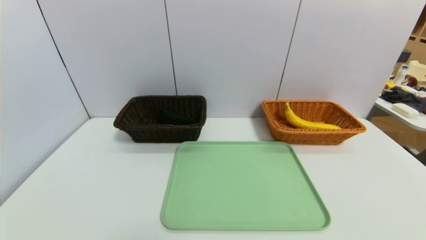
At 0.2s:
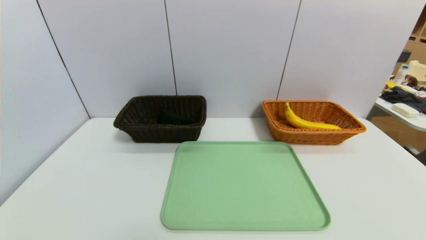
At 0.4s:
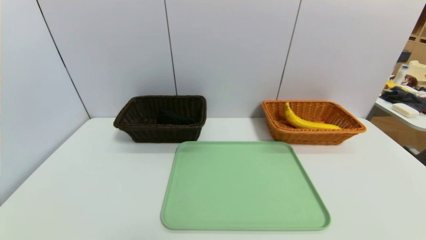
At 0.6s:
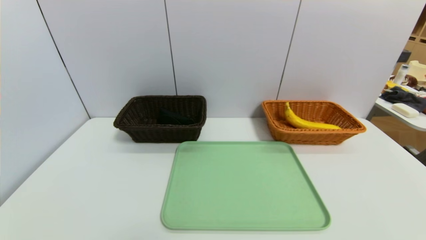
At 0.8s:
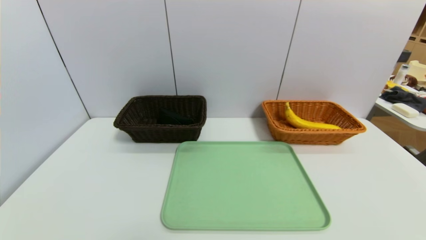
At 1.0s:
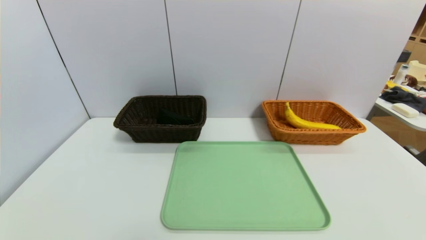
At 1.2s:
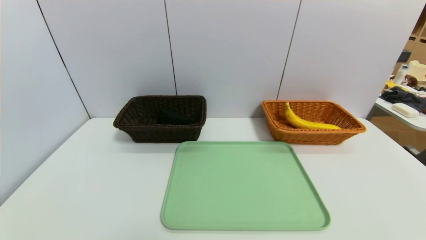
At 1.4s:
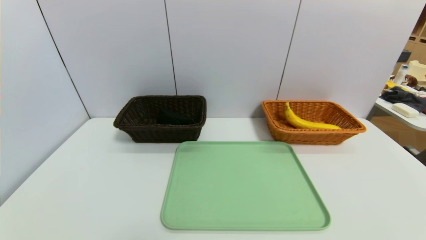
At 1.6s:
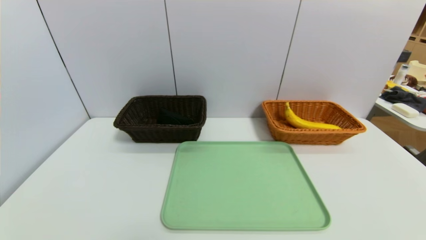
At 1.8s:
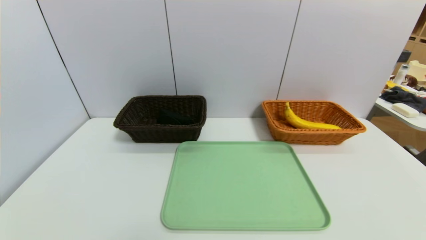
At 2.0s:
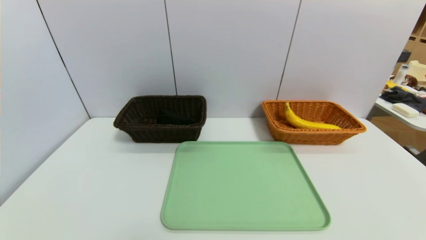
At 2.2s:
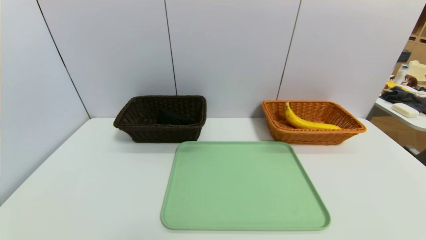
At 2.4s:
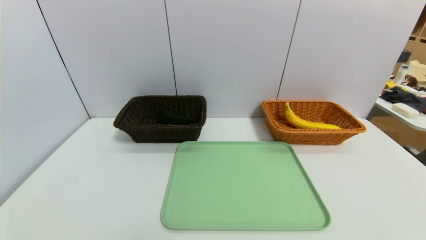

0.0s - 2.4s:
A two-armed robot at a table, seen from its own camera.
Task of the whole recording: place the food in the right basket with the right gripper, and place the non food items in the left basket with the left gripper.
1.2s - 2.4s: Both grippers stay about where they are.

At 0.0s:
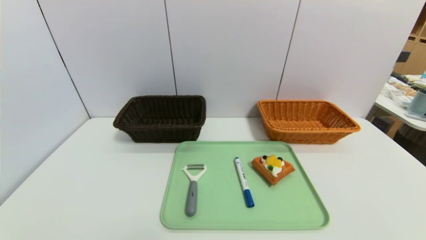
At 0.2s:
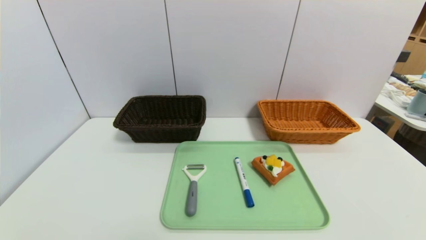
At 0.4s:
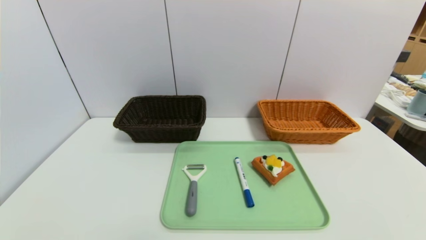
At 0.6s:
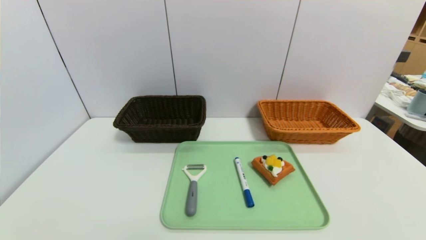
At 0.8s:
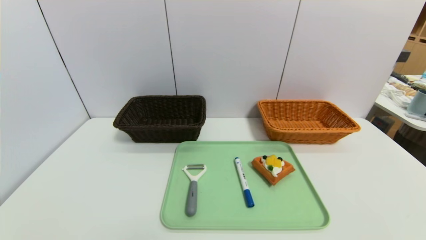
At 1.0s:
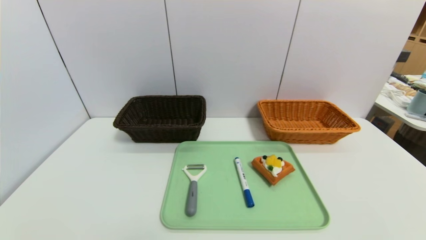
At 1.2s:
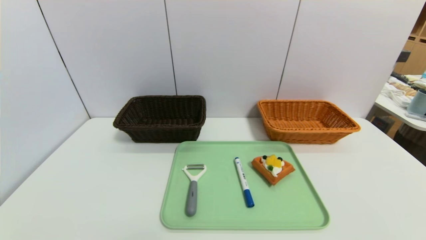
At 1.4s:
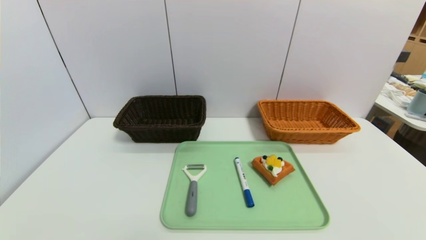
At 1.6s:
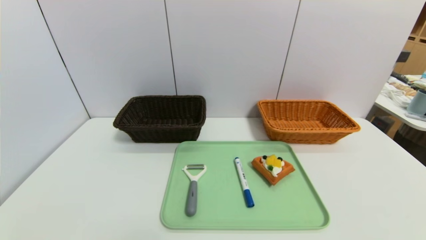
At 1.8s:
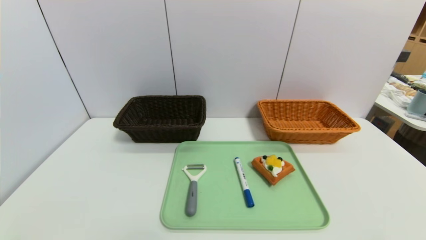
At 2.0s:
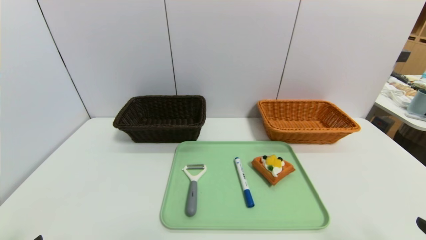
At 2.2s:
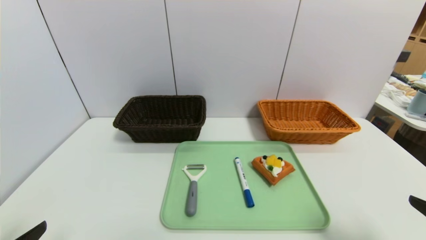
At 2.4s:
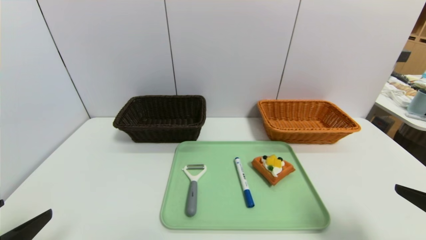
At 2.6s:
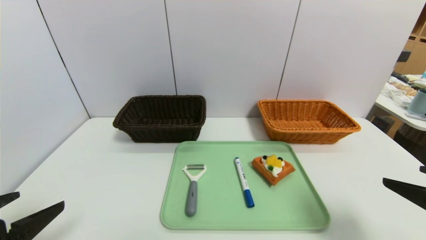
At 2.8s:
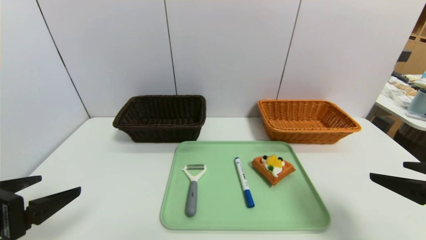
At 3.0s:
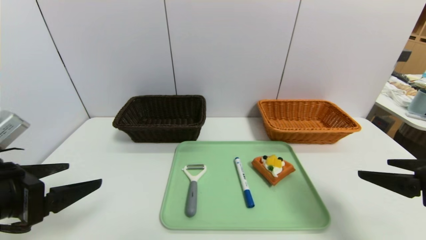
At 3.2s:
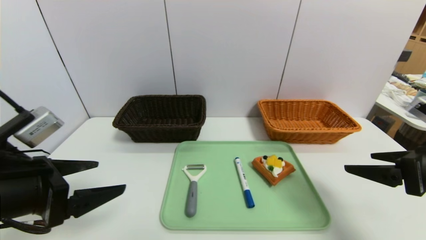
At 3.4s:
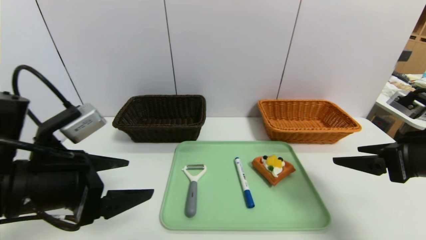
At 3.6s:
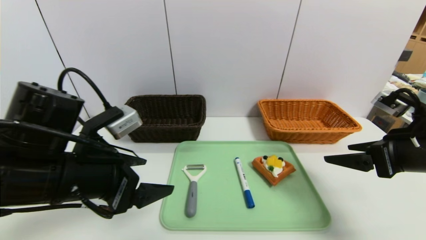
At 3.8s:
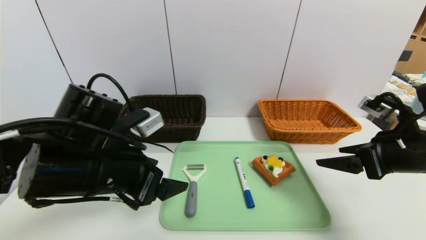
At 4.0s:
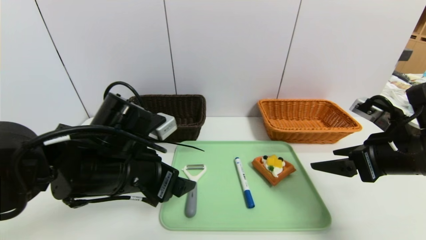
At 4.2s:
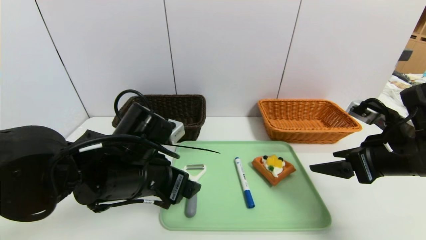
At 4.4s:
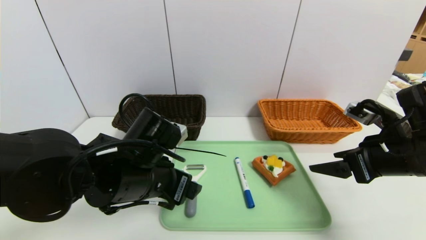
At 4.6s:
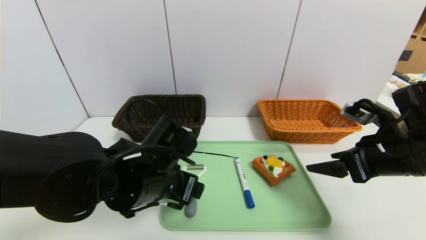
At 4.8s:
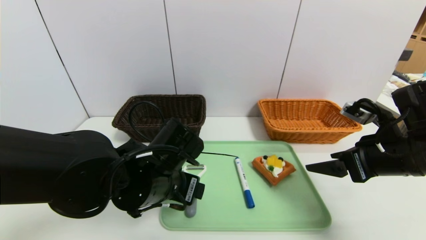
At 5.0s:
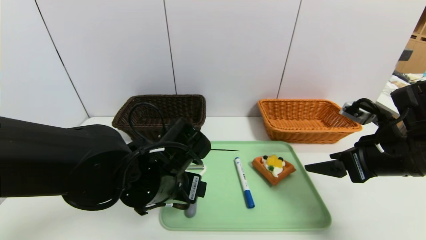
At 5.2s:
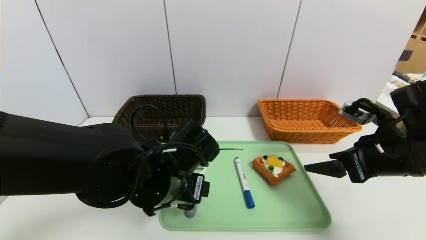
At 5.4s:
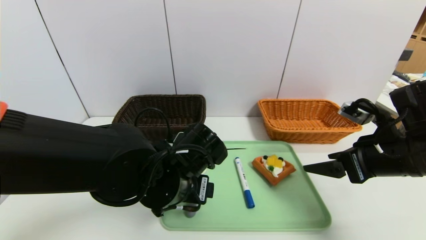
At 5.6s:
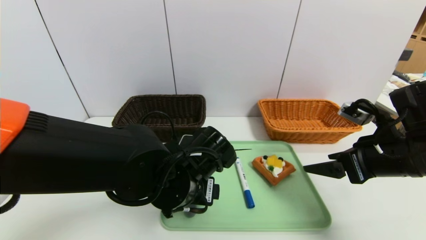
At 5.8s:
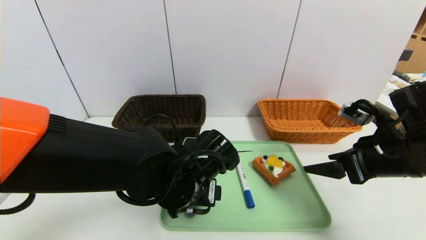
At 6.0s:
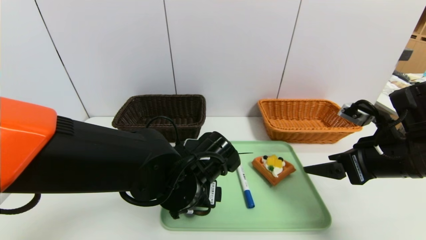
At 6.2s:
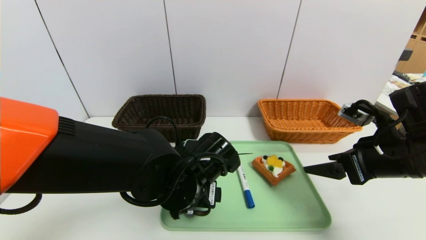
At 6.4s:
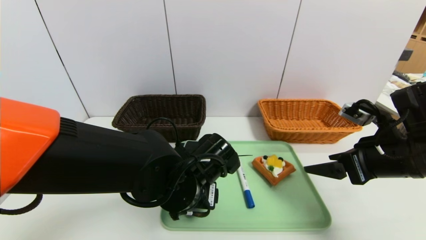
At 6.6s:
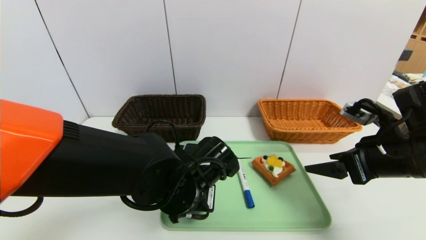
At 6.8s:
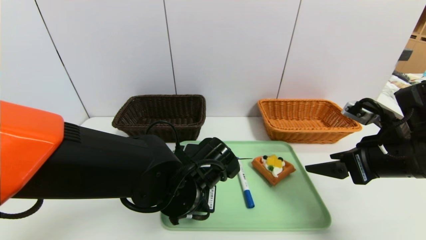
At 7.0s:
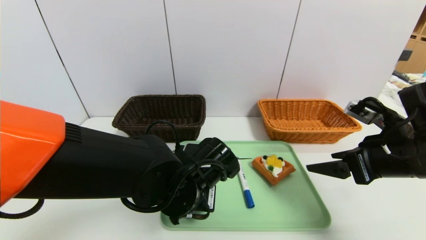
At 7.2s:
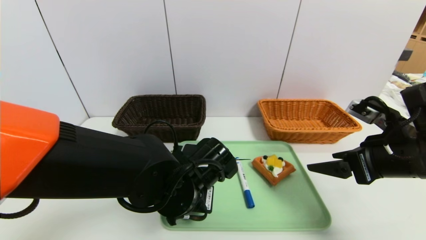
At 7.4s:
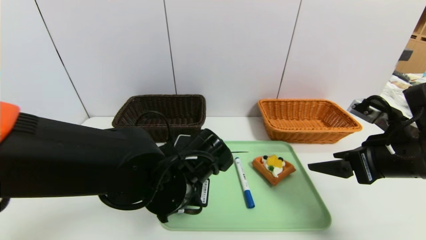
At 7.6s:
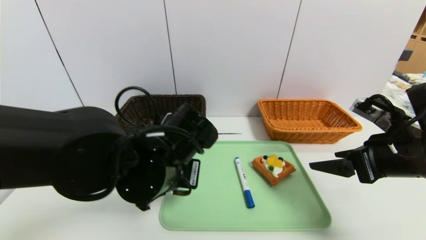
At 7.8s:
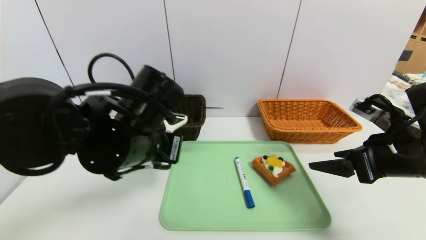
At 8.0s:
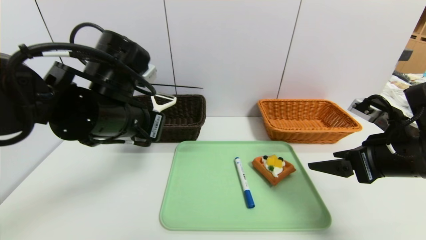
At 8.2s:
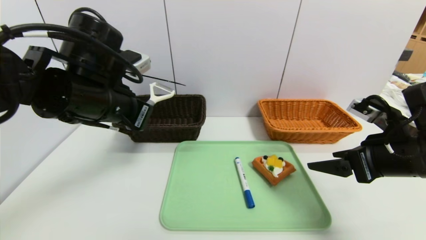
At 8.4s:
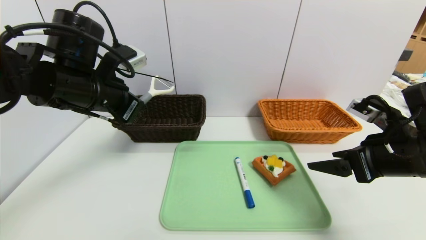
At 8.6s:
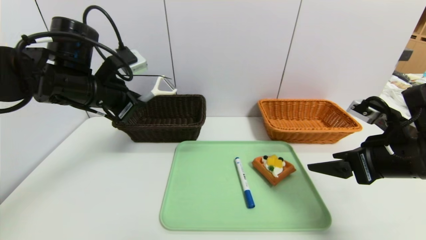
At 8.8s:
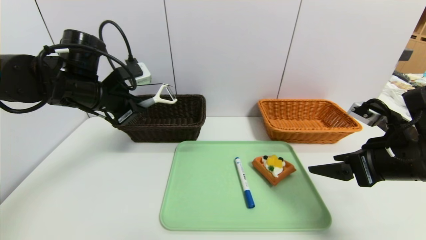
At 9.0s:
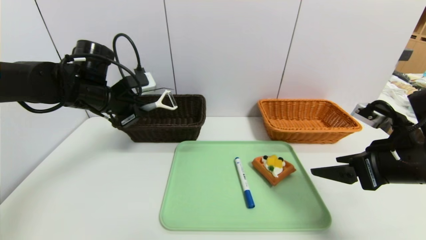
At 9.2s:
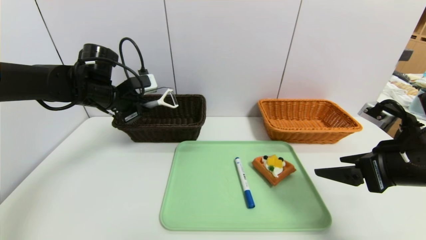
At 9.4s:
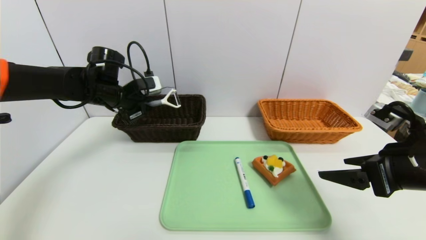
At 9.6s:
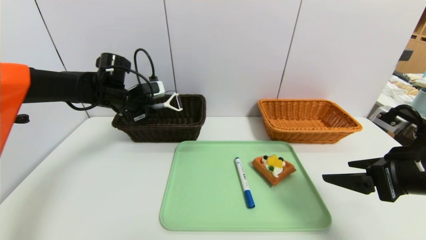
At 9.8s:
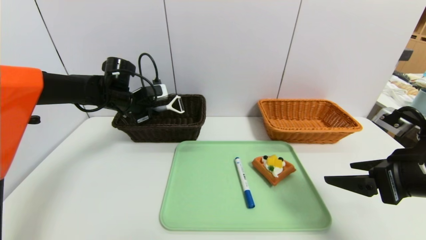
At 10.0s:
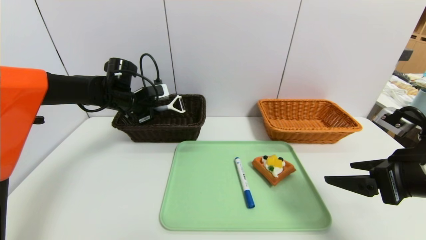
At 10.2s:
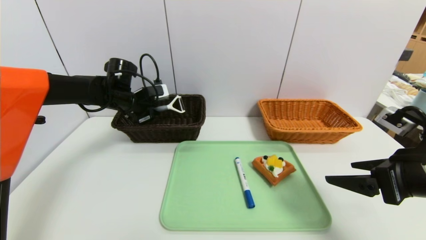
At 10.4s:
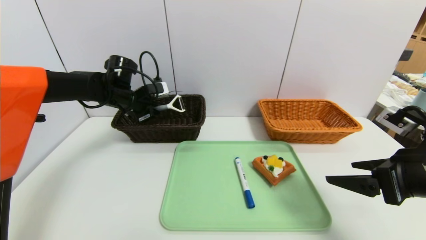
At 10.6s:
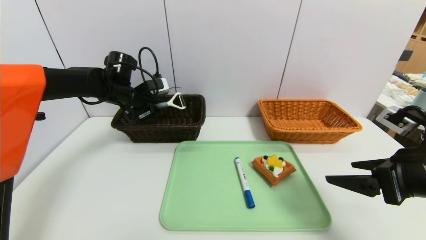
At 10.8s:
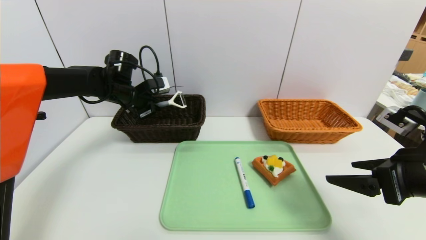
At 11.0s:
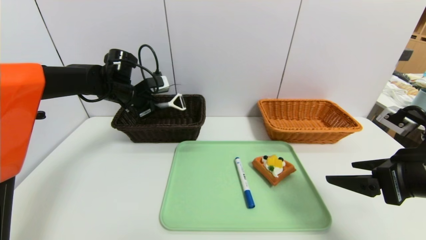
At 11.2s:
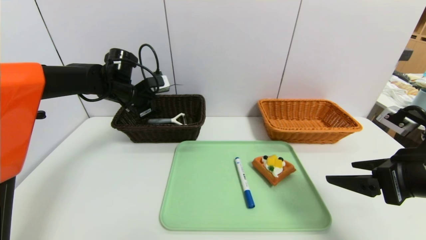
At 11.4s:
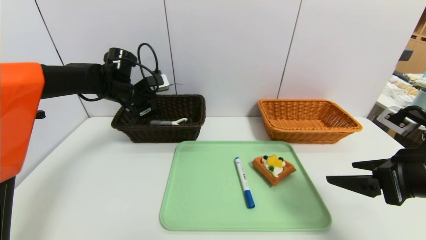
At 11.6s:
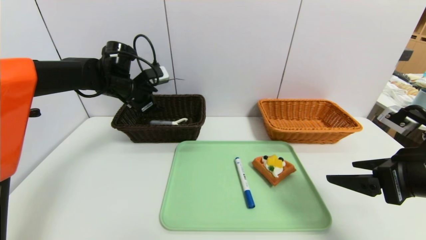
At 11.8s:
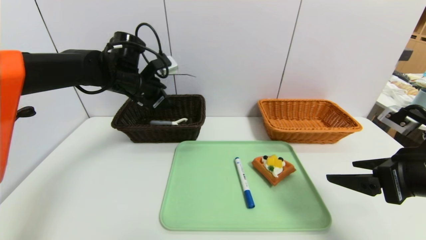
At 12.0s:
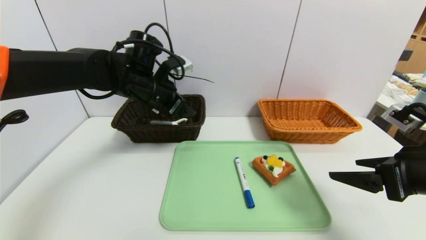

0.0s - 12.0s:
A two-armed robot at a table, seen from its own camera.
Task of the whole recording: place the food in the right basket with the right gripper, and place the non food items in the left basket with the left gripper.
Step, 0.0s - 11.4s: Grasp the peeler and put it in the left basket.
1.6s - 3.0s: Both grippers move forward and upward, some 20 cm.
3.0s - 4.4s: The right gripper shifts about 10 cm forward. The left gripper is displaced to the right and forward by roughly 20 cm.
4.4s - 6.0s: The left gripper heads to the right, covering some 5 cm.
6.0s - 7.6s: The left gripper travels upward by roughly 5 cm, and closes.
7.6s - 9.0s: The left gripper is displaced to the left and forward by roughly 20 cm.
9.0s - 10.4s: The left gripper shifts about 10 cm forward.
10.4s - 12.0s: The left gripper is displaced to the right, backward and upward by roughly 15 cm, and opens.

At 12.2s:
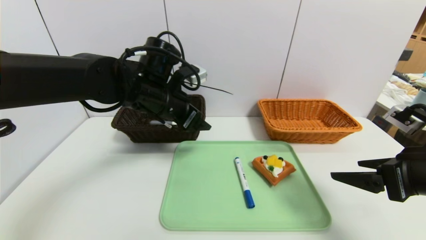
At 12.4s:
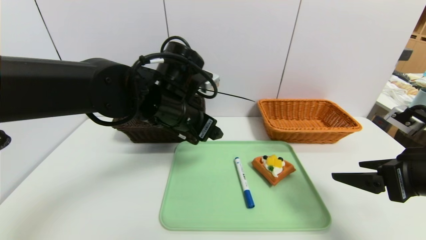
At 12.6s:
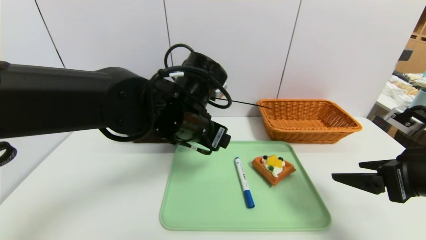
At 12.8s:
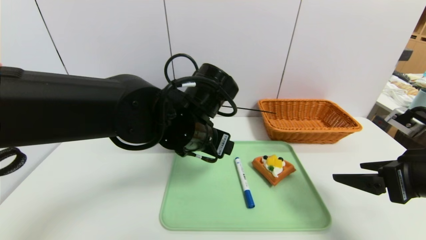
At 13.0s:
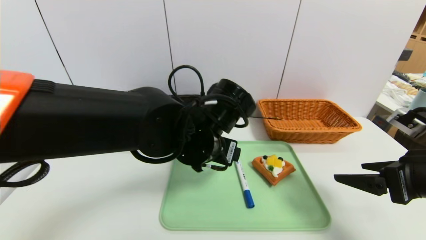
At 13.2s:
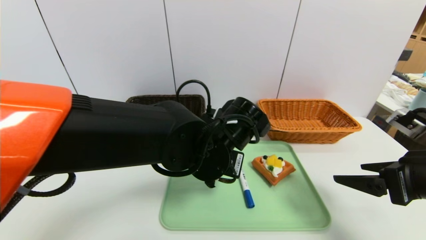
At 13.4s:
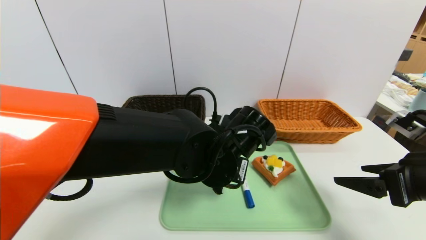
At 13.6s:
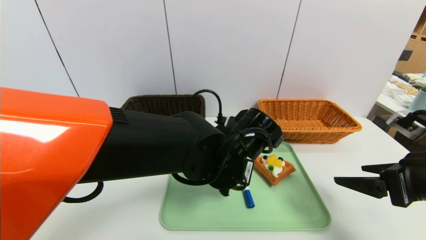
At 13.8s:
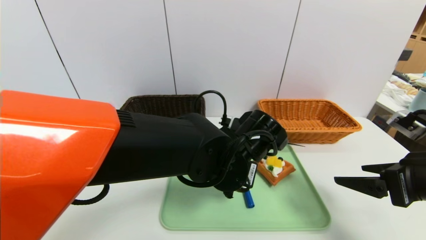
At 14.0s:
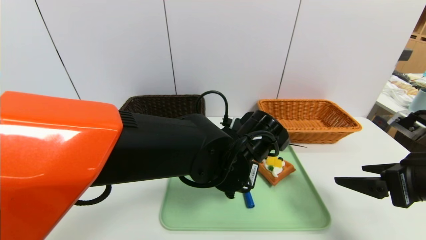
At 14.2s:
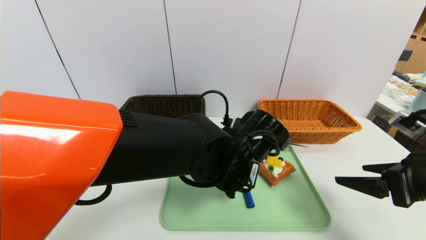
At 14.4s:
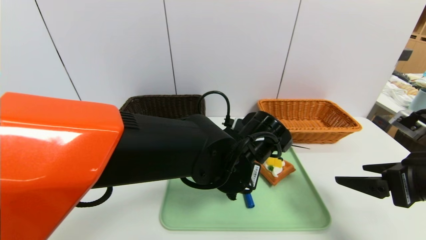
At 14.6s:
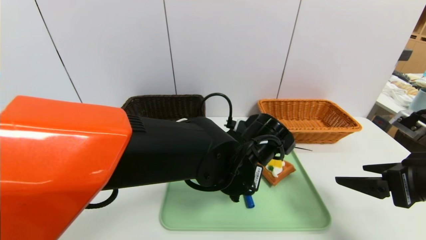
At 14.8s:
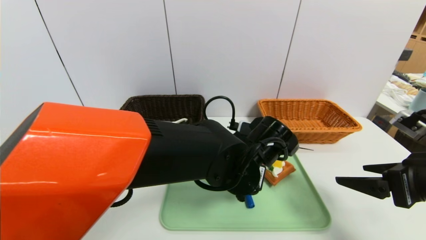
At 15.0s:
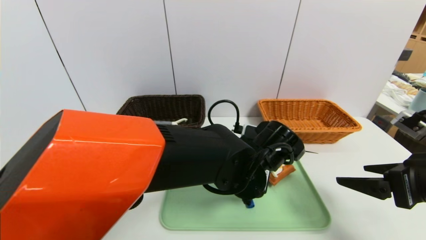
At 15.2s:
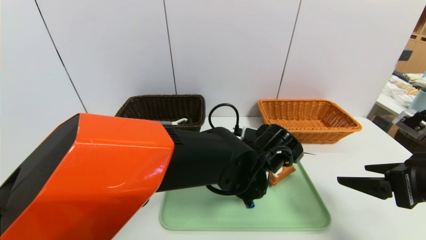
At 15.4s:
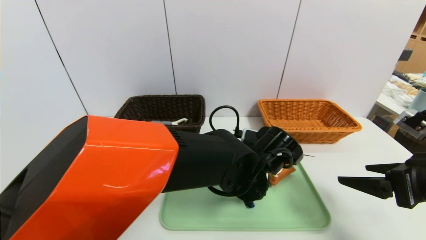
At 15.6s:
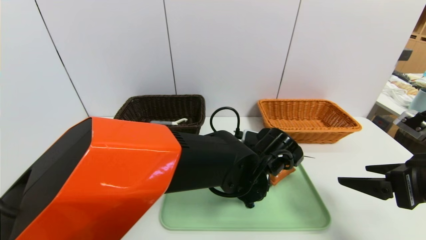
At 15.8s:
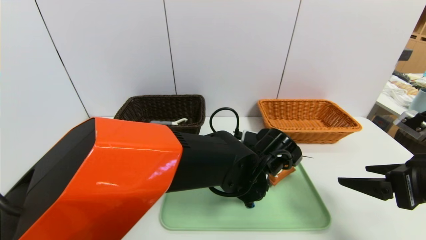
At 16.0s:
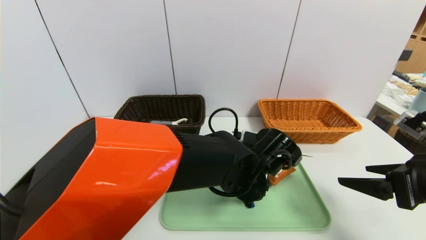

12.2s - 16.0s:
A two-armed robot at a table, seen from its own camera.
Task of the whole recording: place the food in the right basket with the right gripper, and place the non food items in the left basket with the left gripper.
12.2s - 13.4s: The left gripper goes approximately 15 cm to the right, backward and downward, and closes.
13.4s - 14.8s: The left gripper opens.
14.8s - 16.0s: The grippers make only small movements.
